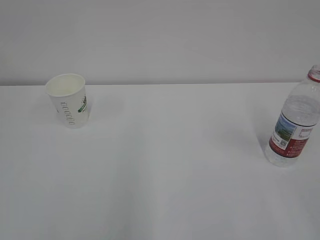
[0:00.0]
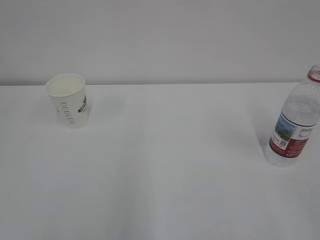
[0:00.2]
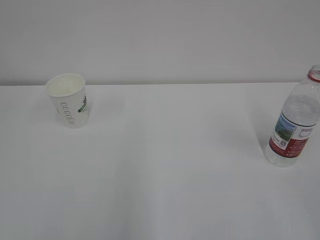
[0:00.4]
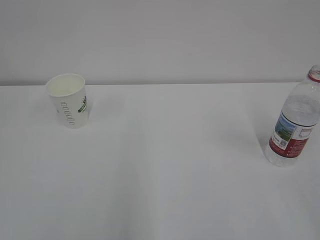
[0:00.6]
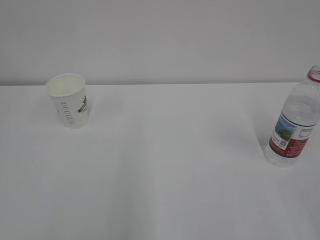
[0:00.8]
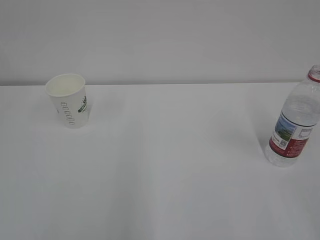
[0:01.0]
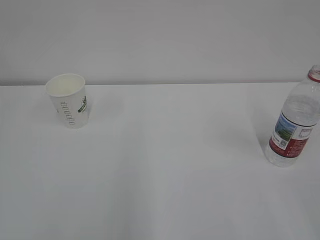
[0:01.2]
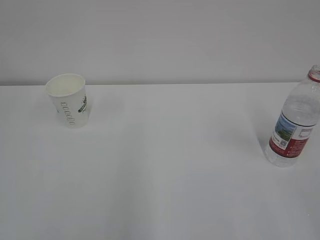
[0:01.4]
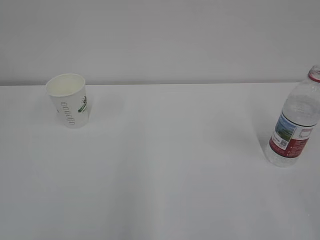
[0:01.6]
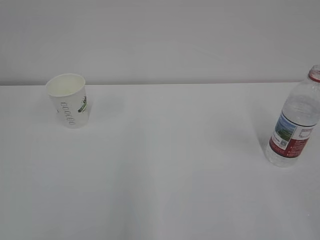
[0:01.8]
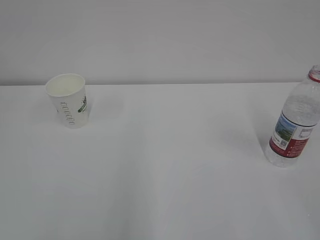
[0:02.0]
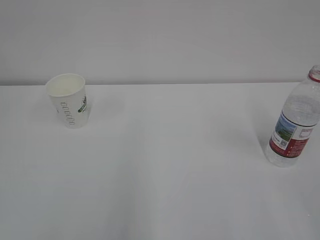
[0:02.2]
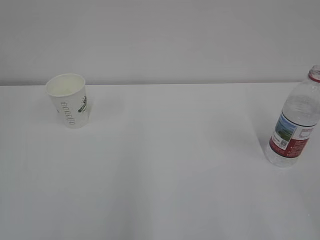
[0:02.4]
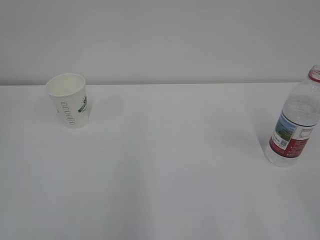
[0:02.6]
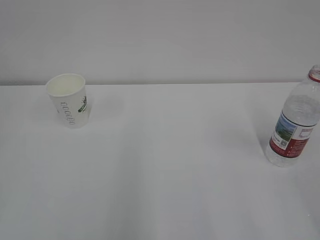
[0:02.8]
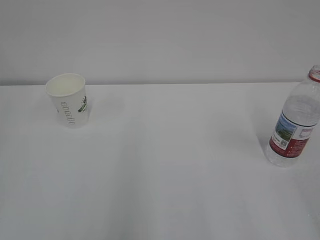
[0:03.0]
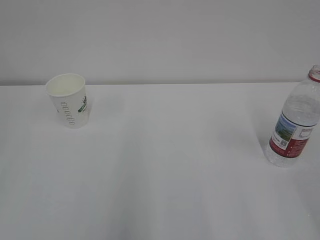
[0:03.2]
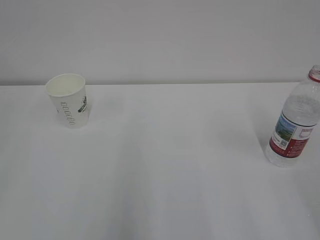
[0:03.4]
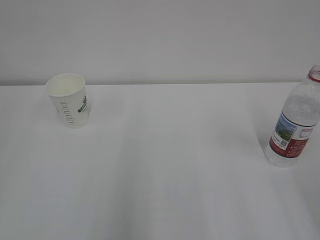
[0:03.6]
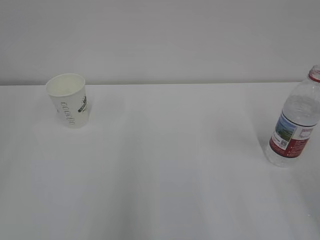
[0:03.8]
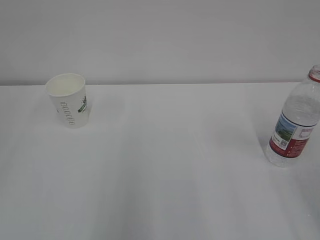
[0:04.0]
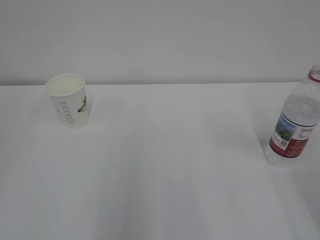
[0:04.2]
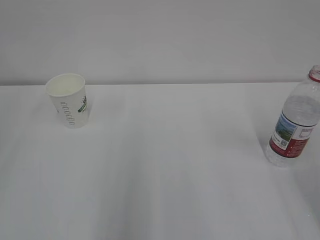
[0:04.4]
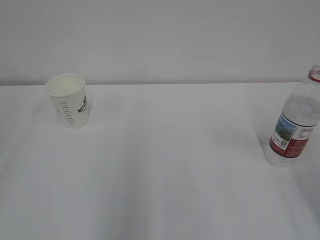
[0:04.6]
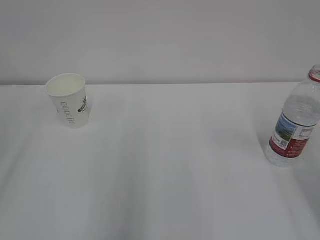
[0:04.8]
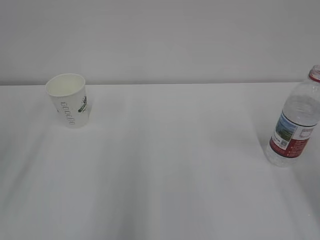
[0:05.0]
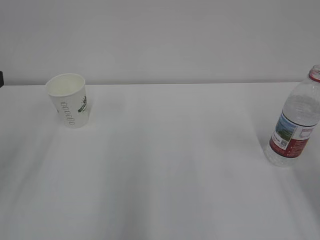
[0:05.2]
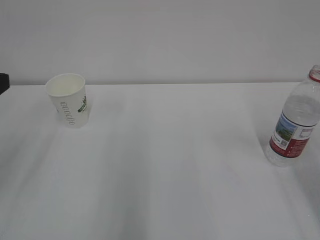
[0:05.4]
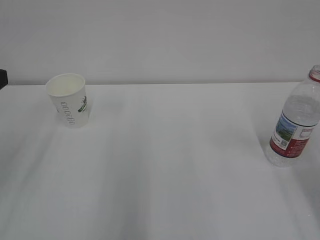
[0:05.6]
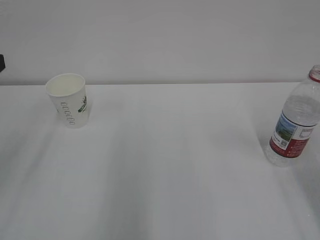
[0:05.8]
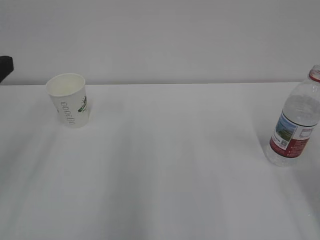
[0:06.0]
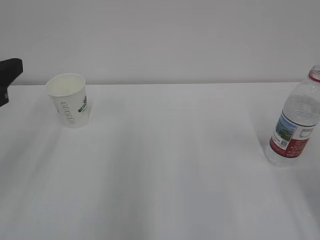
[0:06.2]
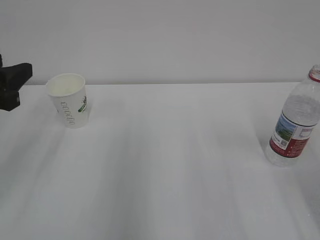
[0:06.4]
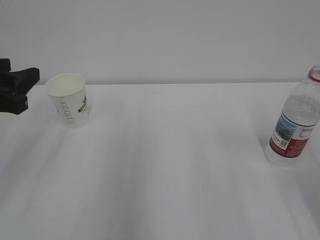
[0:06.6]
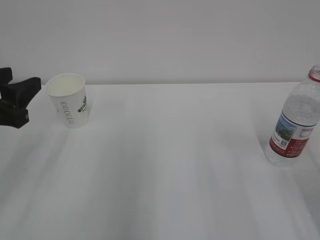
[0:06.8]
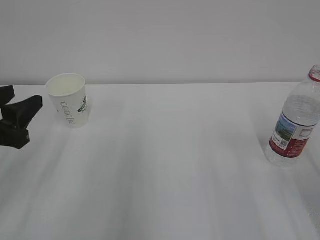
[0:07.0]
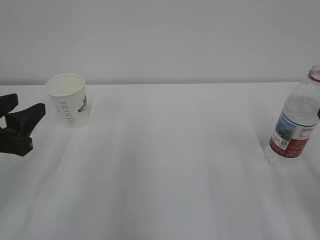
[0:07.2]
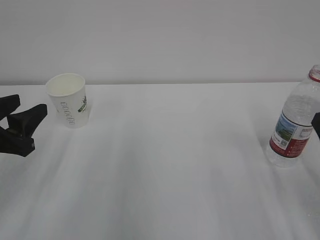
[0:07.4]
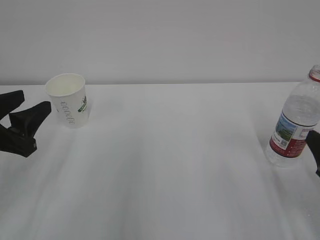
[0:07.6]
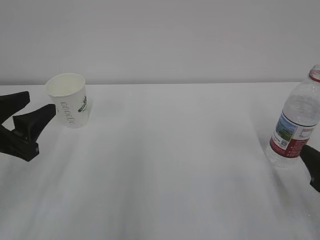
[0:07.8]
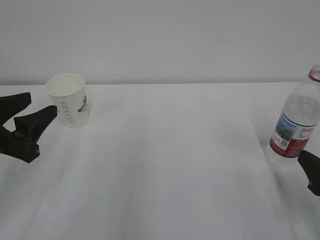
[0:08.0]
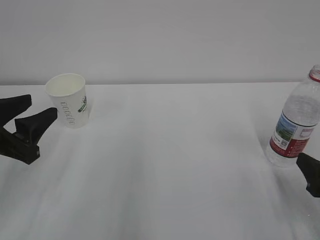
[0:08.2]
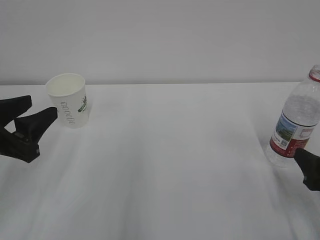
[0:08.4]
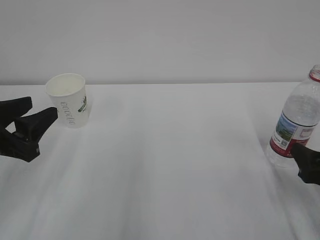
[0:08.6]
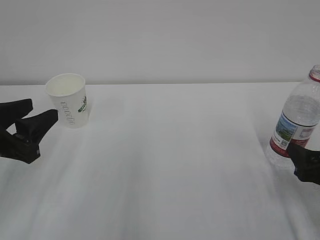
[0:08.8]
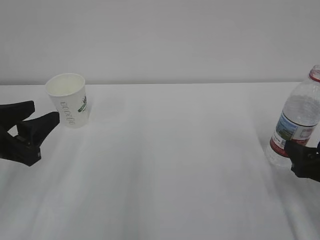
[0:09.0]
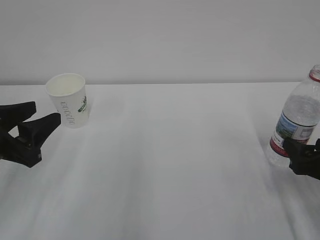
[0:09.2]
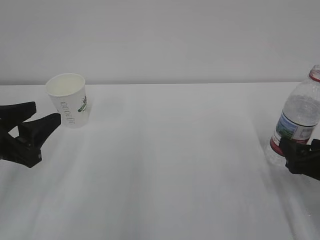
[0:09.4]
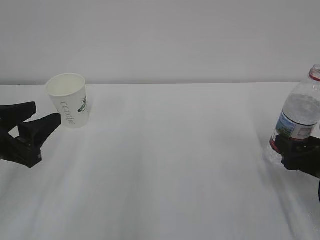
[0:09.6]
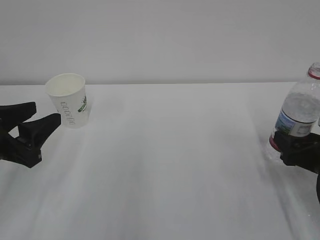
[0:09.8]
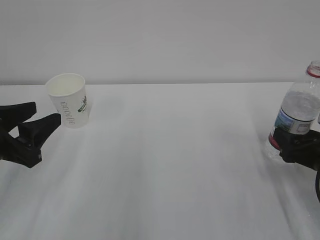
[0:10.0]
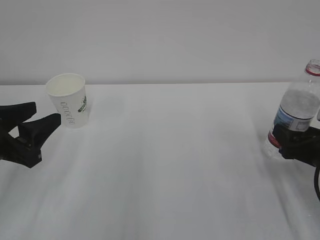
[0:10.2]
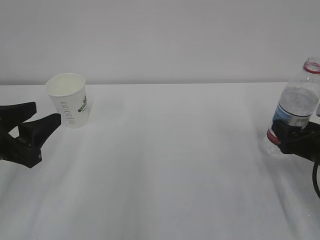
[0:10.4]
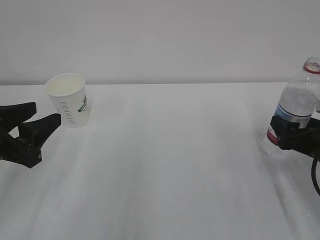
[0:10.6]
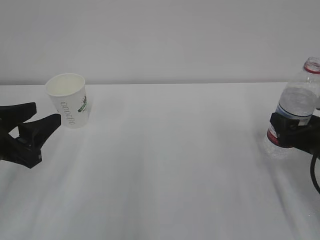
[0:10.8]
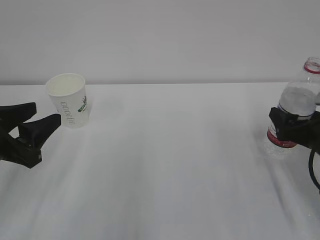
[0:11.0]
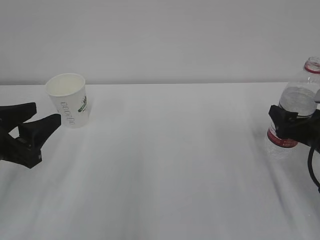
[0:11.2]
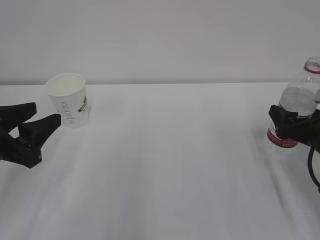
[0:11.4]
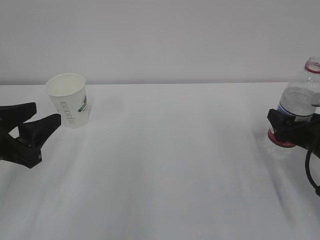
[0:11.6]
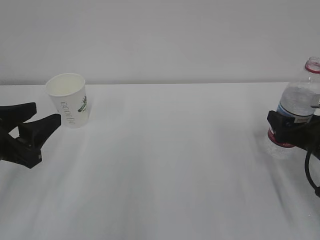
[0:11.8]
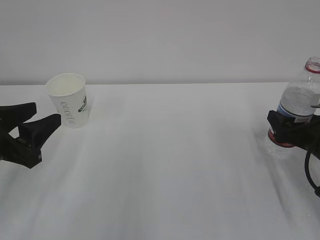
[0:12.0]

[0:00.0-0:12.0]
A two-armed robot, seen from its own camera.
0:06.0 to 0:07.6: The left gripper goes roughly 10 cm downward.
0:07.6 to 0:09.0: The right gripper shifts by roughly 5 cm.
0:09.0 to 0:10.4: There are only small adjustments of the grippers.
0:10.4 to 0:12.0: The grippers make only small movements.

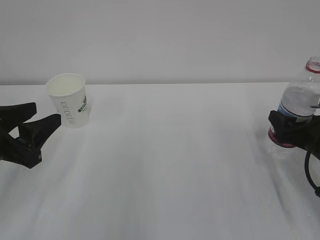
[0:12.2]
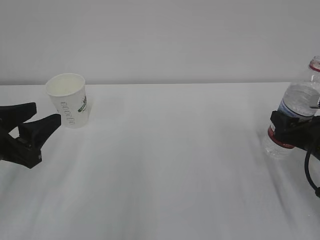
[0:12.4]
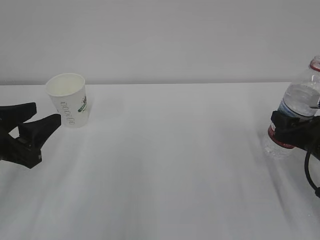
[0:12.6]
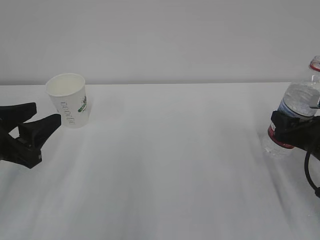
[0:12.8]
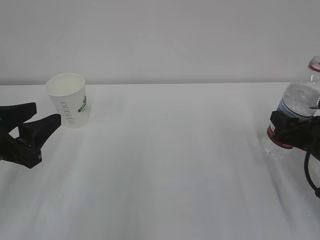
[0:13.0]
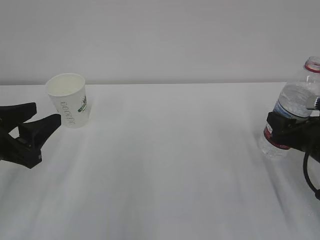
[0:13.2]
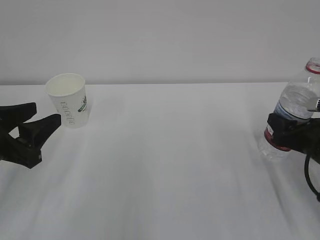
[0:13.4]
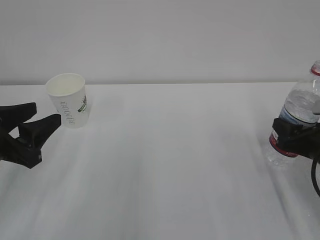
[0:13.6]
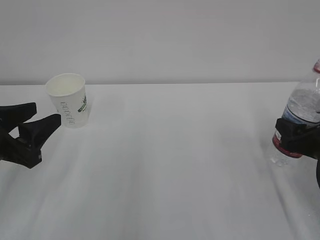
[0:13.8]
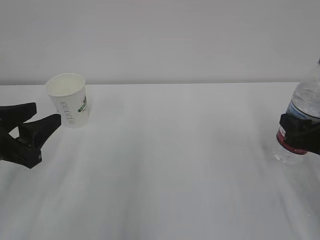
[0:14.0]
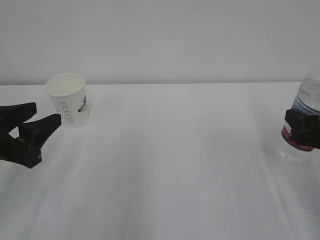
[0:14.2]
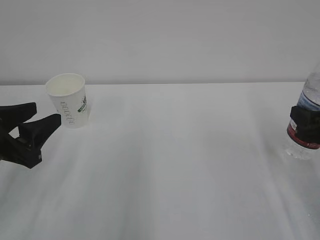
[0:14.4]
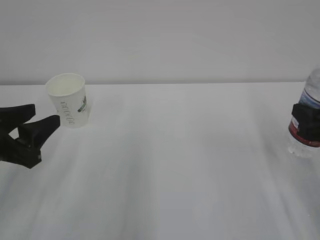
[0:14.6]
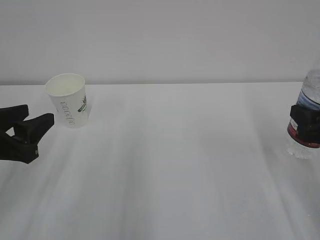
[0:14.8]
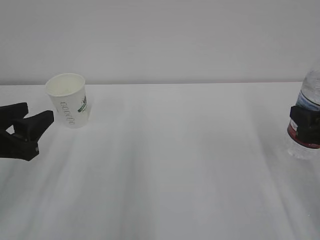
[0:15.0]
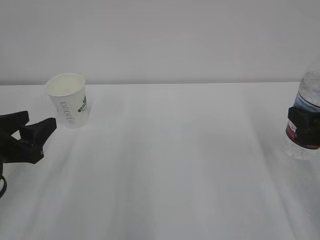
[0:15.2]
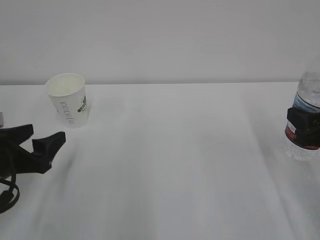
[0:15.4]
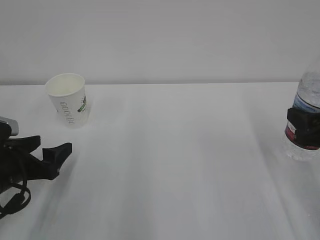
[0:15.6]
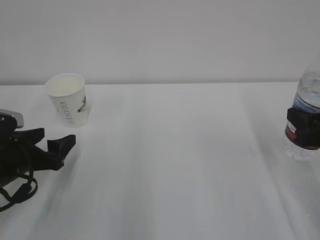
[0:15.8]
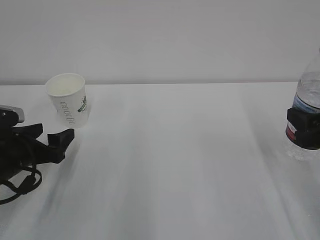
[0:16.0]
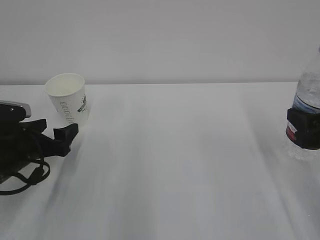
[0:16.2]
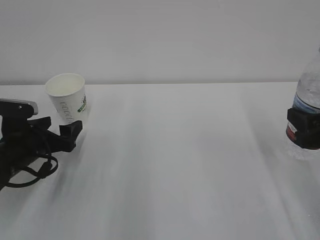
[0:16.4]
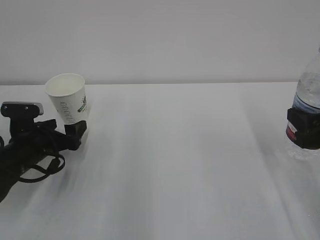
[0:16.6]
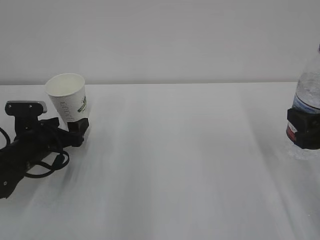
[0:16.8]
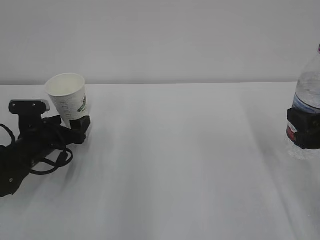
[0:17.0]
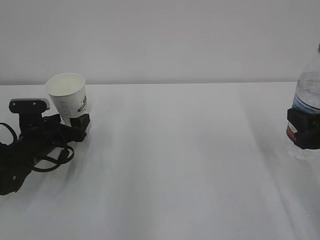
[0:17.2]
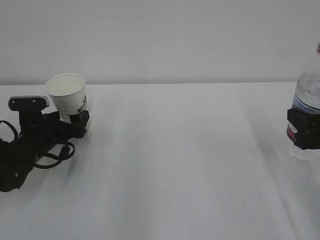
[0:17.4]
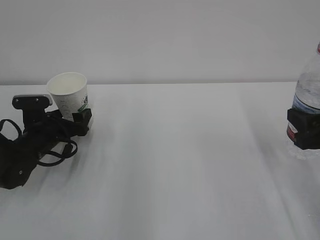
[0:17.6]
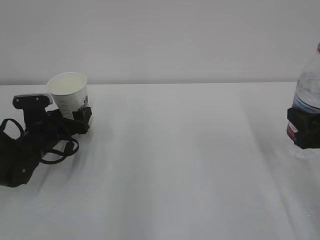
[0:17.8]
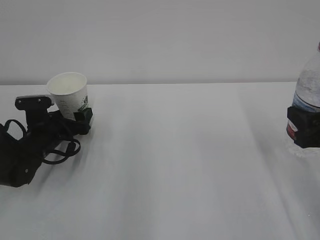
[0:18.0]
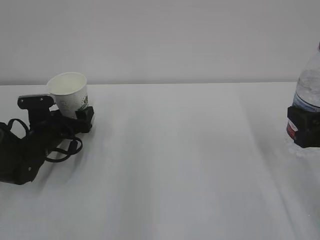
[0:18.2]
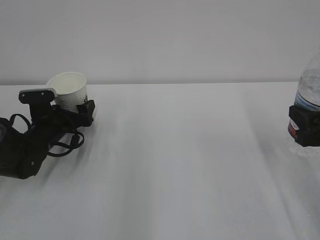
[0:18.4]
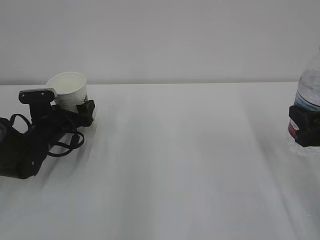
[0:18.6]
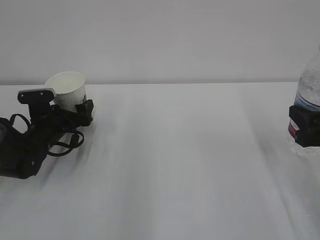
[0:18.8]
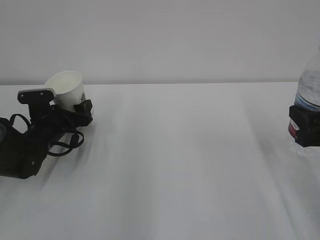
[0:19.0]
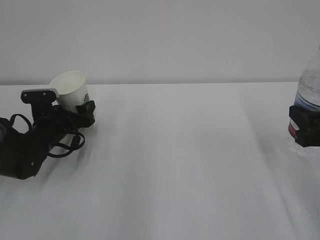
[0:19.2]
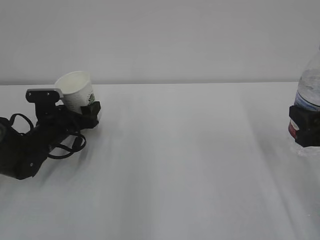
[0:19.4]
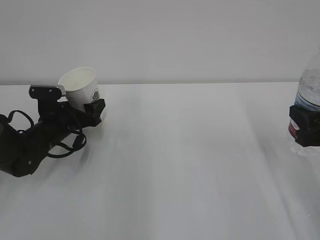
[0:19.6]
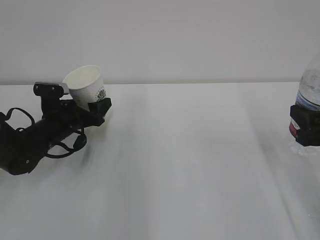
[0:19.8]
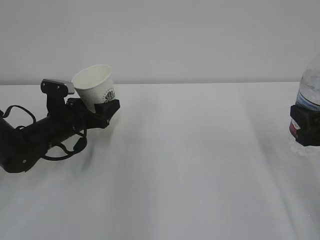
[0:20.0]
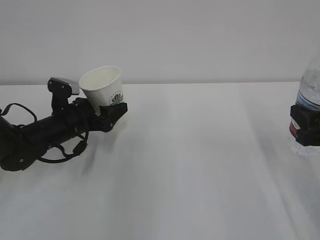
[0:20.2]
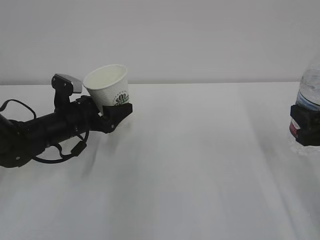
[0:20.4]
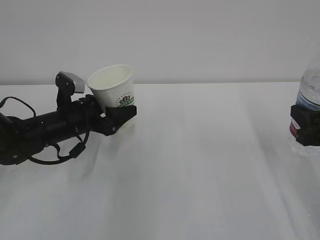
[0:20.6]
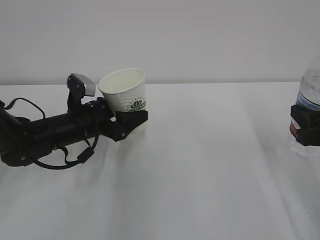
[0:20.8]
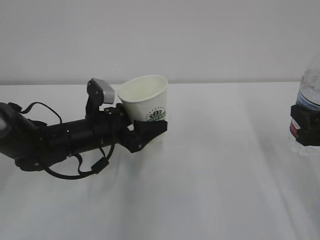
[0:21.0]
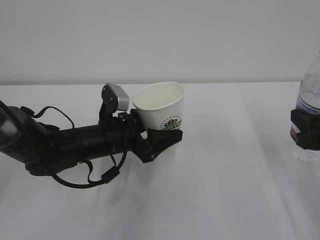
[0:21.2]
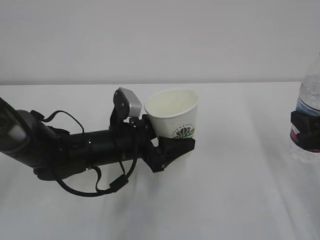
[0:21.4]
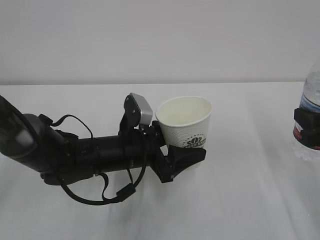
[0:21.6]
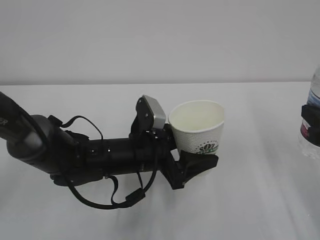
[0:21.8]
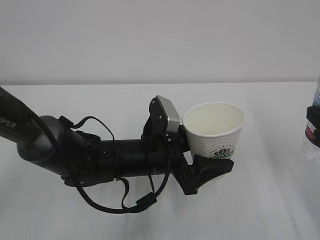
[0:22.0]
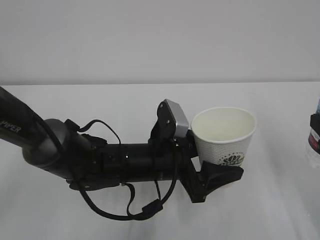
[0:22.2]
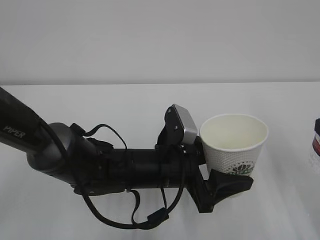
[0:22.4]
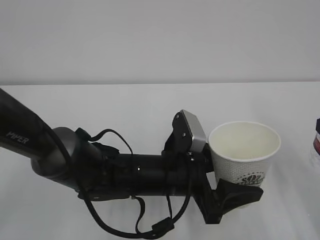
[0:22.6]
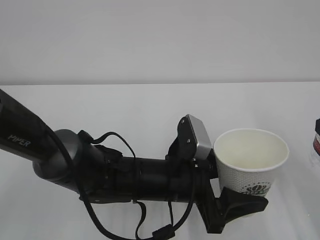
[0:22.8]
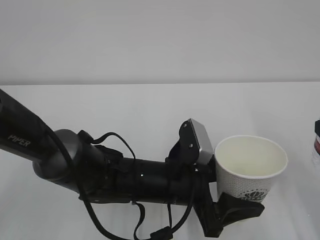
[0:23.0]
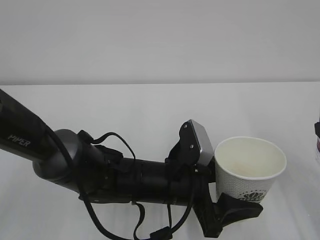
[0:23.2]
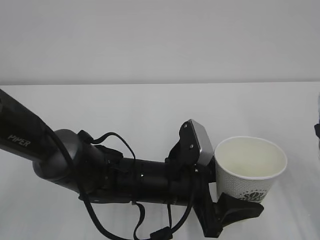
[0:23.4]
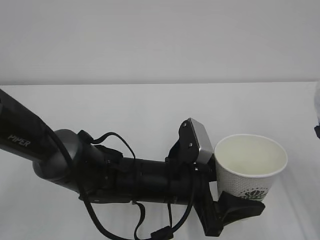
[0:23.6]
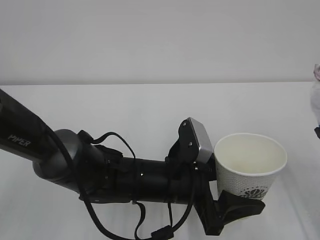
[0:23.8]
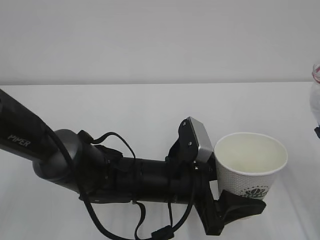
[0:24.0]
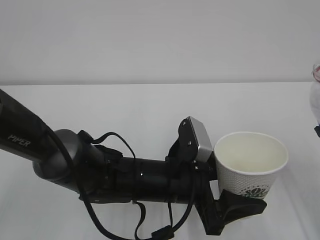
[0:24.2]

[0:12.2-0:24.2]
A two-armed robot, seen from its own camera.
0:12.2 to 0:13.8: The right gripper closes up.
0:13.8 to 0:15.2: The right gripper heads upward, covering approximately 5 cm.
0:15.2 to 0:16.6: The left gripper is displaced forward and downward by roughly 15 cm, and opens its fingers.
0:16.6 to 0:18.2: The left gripper shifts roughly 5 cm forward.
0:18.2 to 0:19.8: The left gripper closes its fingers.
0:19.8 to 0:21.2: The left gripper is displaced to the right and backward by some 15 cm.
0:21.2 to 0:22.6: The right gripper moves backward, approximately 5 cm; the left gripper moves to the right and backward, roughly 15 cm.
